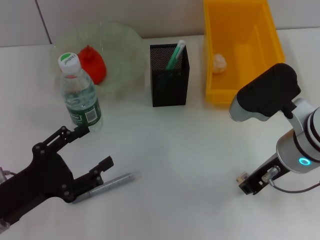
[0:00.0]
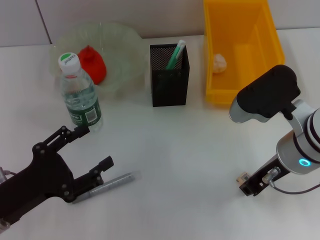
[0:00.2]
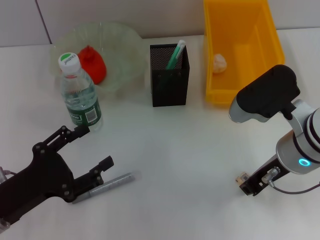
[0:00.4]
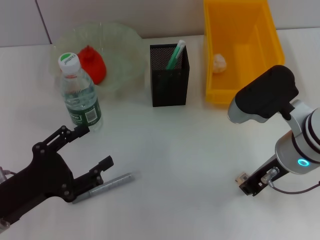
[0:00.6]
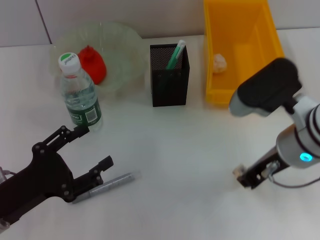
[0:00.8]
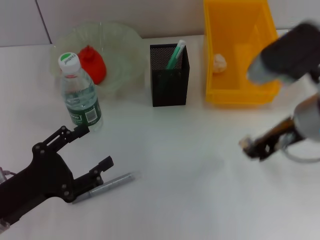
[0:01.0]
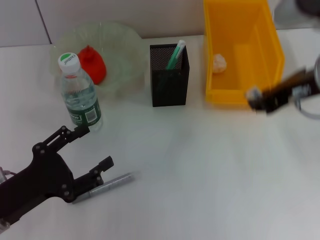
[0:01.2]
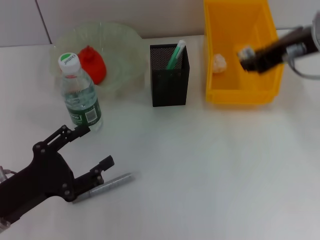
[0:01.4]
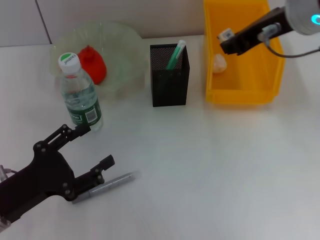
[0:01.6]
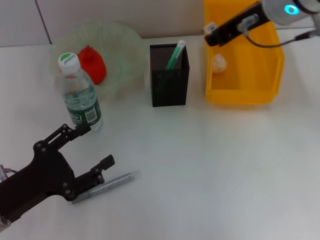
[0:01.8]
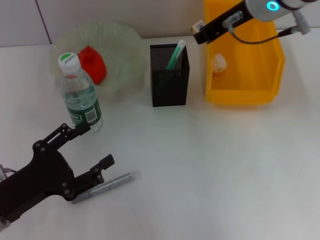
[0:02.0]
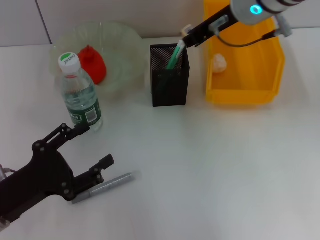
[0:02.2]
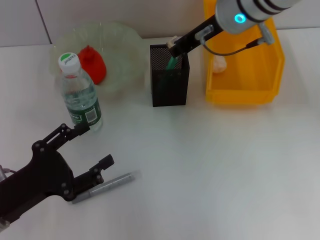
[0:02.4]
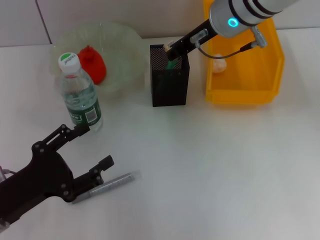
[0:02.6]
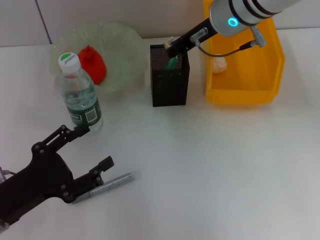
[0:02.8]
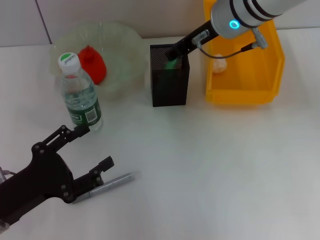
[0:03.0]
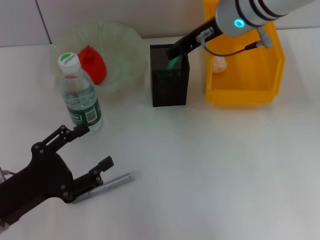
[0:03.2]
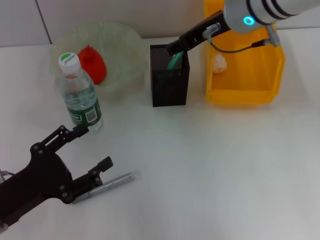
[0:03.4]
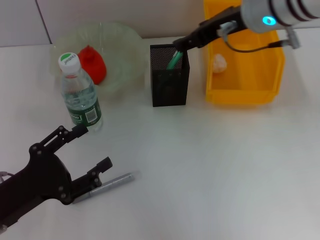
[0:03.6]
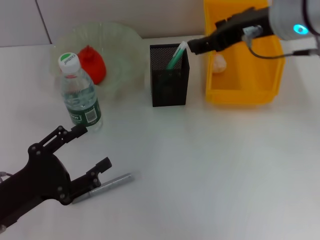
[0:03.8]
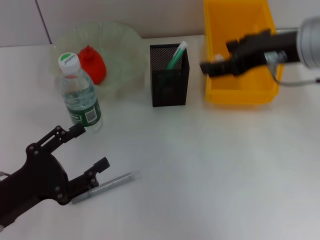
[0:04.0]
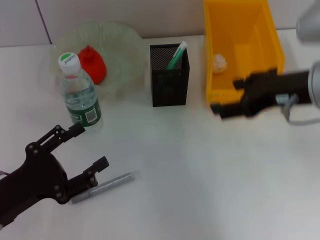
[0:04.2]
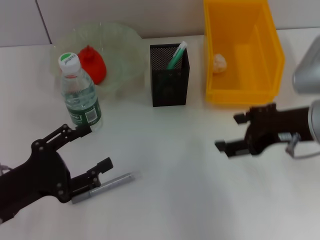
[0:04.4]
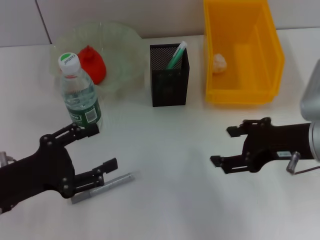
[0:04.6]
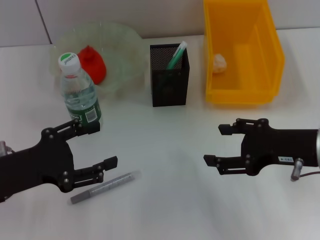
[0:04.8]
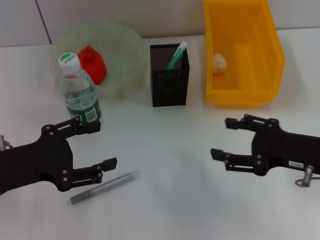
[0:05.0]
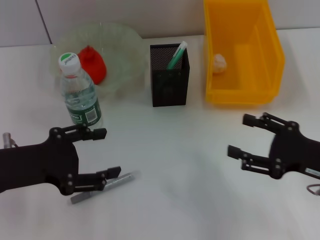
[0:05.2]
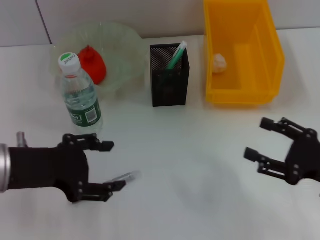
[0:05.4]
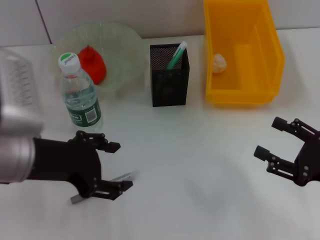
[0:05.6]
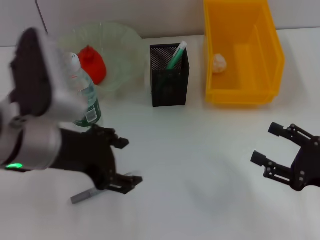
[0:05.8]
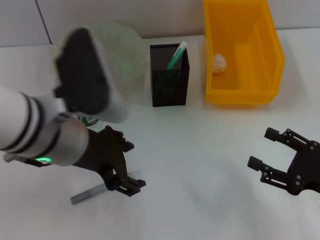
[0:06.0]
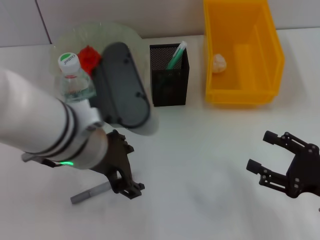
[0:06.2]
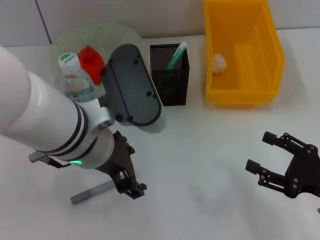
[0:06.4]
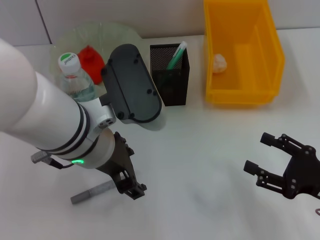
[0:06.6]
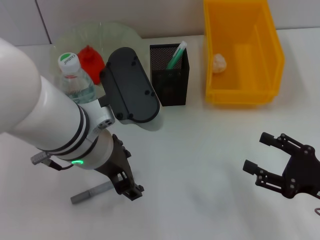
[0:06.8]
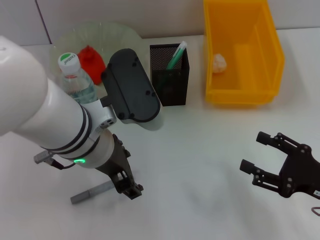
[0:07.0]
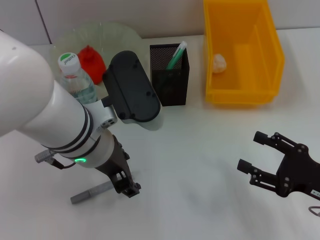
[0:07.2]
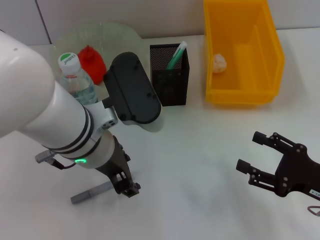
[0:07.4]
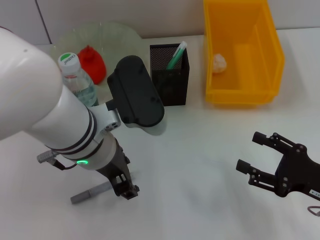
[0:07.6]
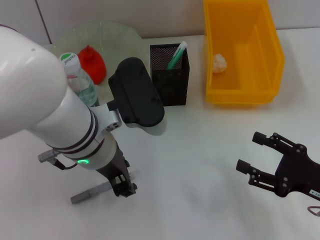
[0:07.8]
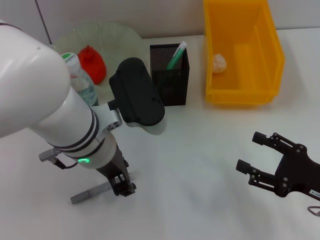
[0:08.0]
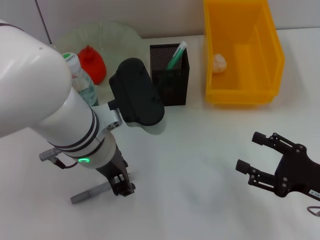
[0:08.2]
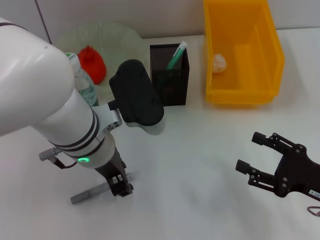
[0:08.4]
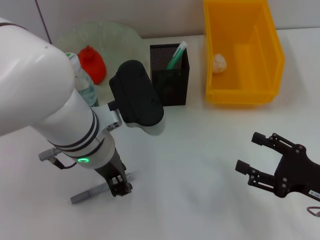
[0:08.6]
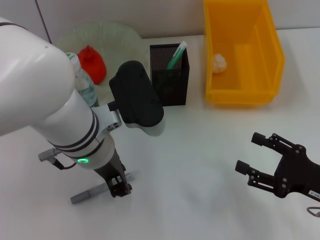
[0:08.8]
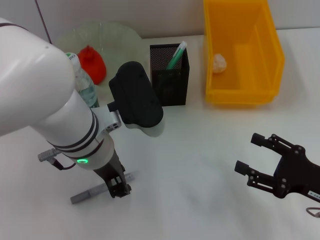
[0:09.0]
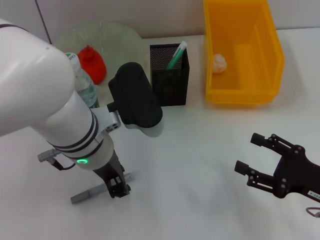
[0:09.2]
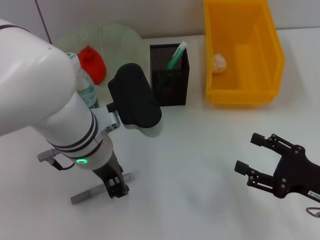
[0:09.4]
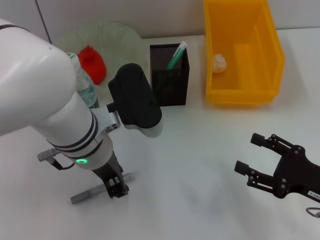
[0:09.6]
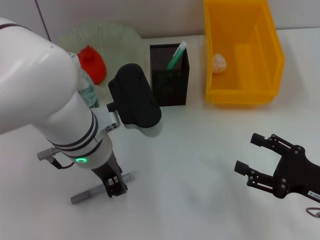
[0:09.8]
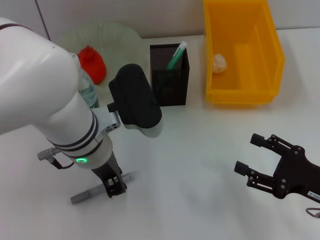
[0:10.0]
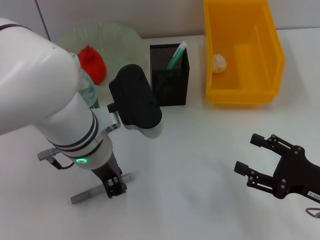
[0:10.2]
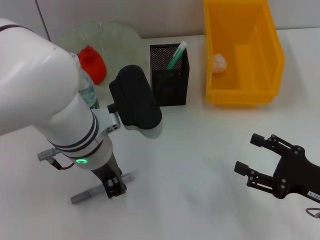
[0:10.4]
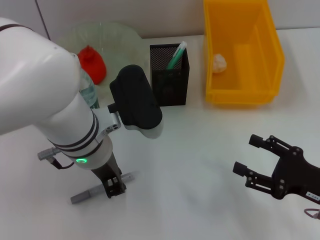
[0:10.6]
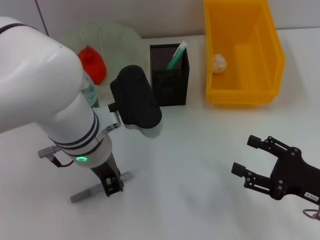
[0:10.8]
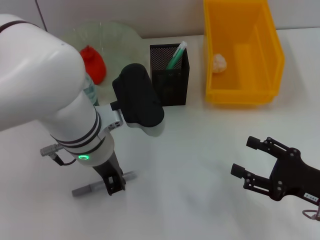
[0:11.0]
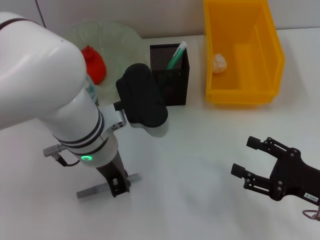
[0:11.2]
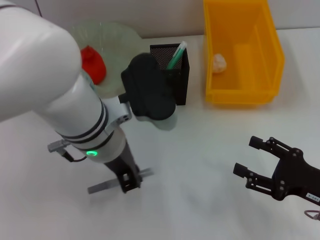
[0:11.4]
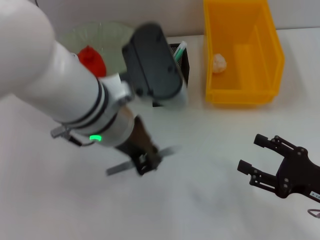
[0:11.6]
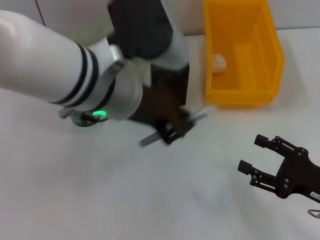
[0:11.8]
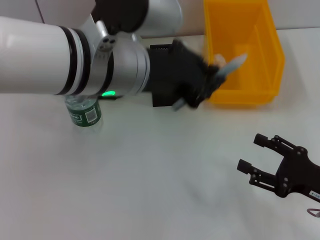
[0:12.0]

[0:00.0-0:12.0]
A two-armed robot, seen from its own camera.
Step, 0:00.6 to 0:03.0: Put the eraser into the pen holder with the right hand.
Step, 0:03.2 to 0:10.8: Grab the gray glue with the left hand.
0:00.0 to 0:01.6: The right gripper goes some 15 cm upward and forward.
0:01.6 to 0:03.0: The right gripper heads forward, downward and to the left, covering roughly 10 cm.
0:03.0 to 0:04.4: The right gripper travels backward and to the right by approximately 20 cm, and opens up.
0:04.4 to 0:06.0: The right gripper travels downward, backward and to the right by approximately 15 cm. Meanwhile the left gripper heads to the right, upward and forward, covering some 20 cm.
0:06.0 to 0:07.6: The left gripper shifts by some 5 cm.
0:07.6 to 0:09.0: There are only small adjustments of the grippers.
0:09.0 to 0:10.4: The two grippers keep their place.
0:10.4 to 0:12.0: The left gripper shifts approximately 10 cm upward.

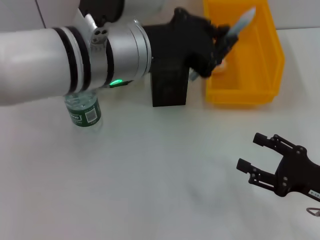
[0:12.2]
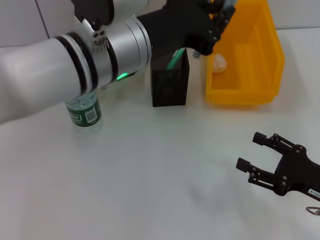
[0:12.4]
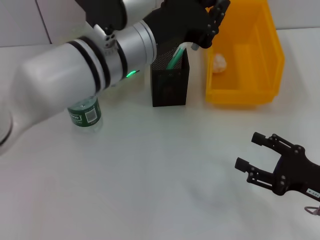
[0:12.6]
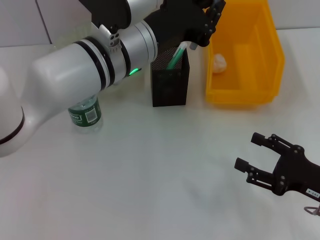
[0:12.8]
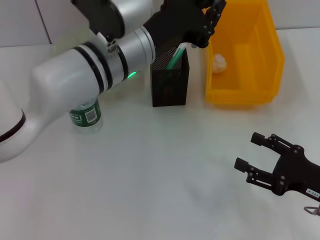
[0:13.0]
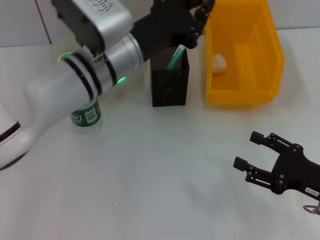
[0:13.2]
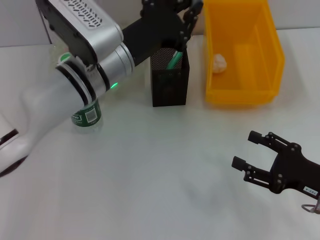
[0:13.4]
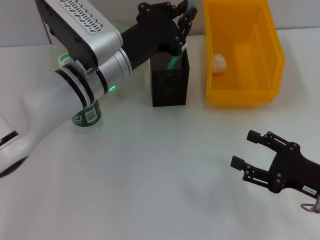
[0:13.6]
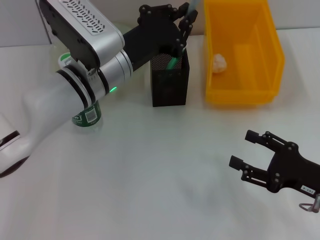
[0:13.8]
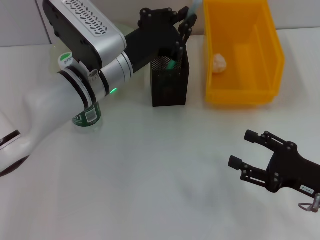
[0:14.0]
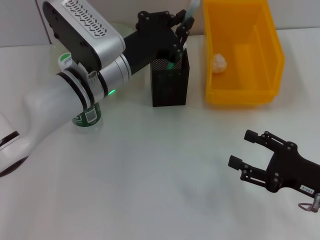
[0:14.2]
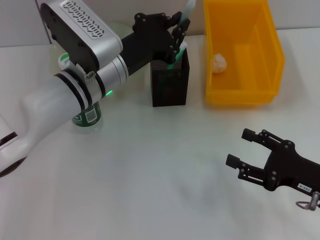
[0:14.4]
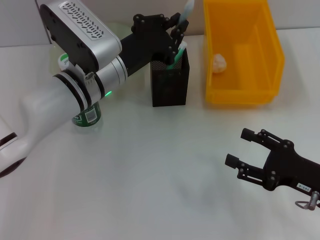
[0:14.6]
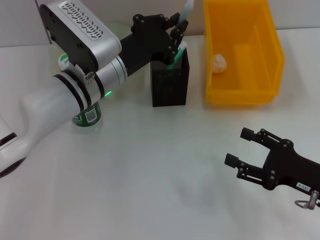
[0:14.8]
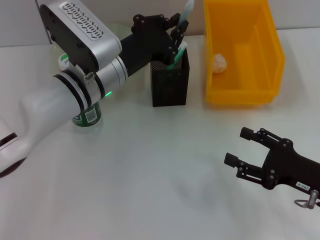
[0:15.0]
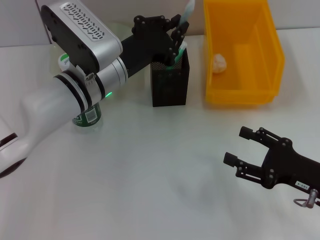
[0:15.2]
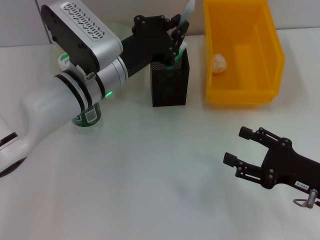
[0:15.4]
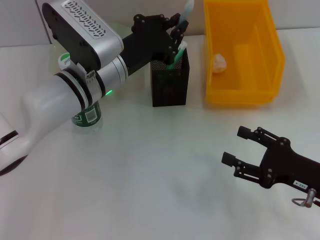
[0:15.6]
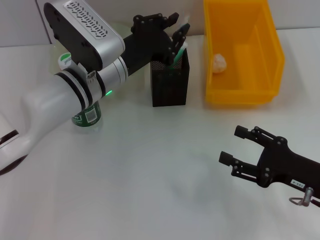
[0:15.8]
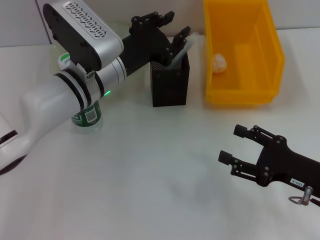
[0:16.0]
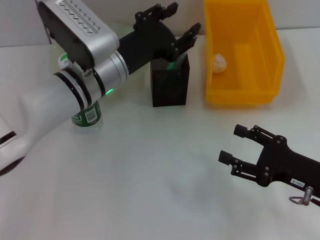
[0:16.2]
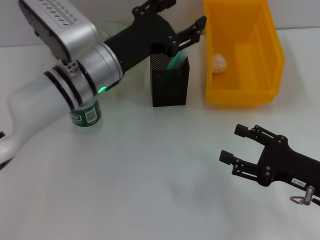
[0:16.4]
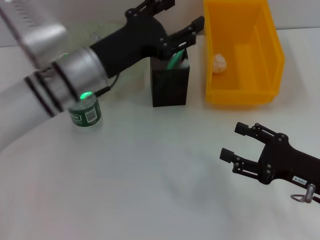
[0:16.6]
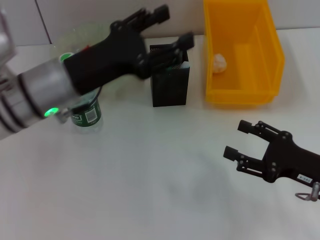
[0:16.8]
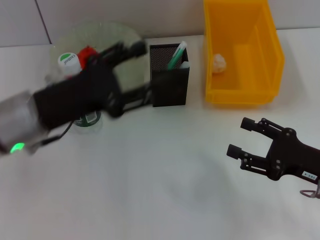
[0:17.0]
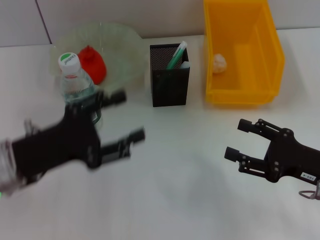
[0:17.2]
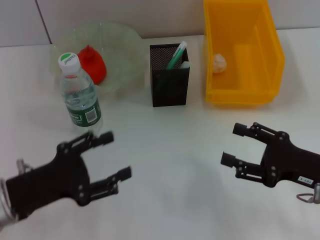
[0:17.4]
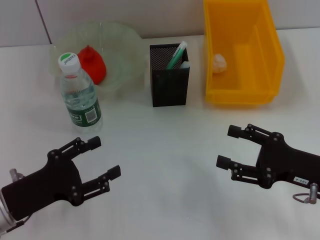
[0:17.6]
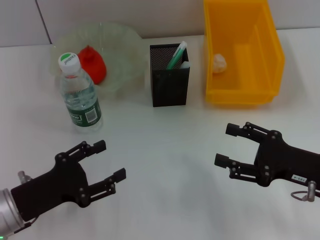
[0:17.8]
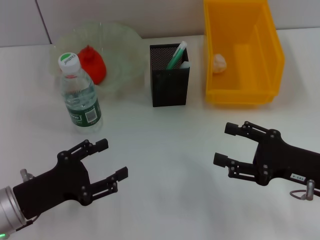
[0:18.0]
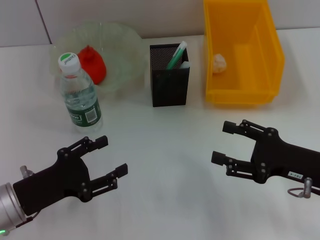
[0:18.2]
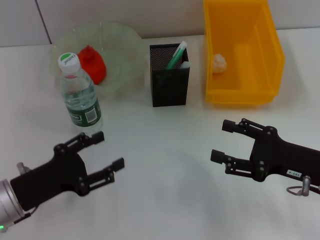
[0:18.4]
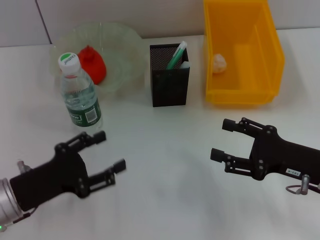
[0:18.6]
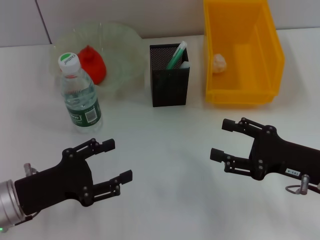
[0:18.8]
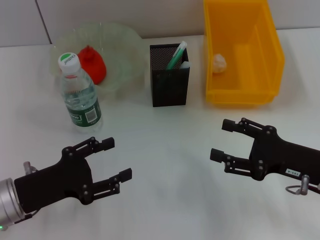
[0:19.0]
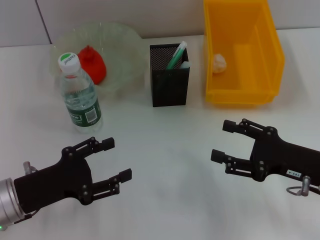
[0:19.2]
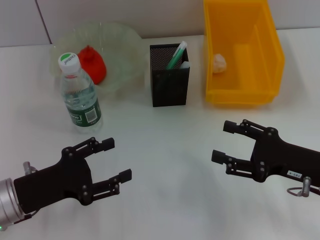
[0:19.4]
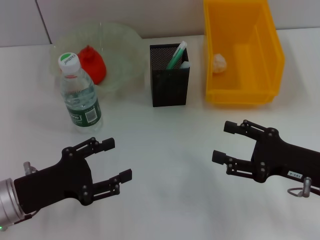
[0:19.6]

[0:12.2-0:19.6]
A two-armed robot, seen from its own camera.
Step, 0:12.2 to 0:16.6: Place the gray glue into the pen holder with the left hand.
0:12.2 to 0:13.6: The left gripper shifts some 10 cm downward and forward.
0:13.6 to 0:15.2: The grippers move only a little.
0:15.2 to 0:16.6: The left gripper opens.
0:16.6 to 0:18.2: The left gripper moves to the left, backward and downward, about 20 cm.
0:18.2 to 0:19.6: There are only small adjustments of the grippers.
